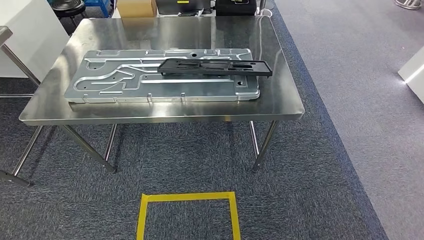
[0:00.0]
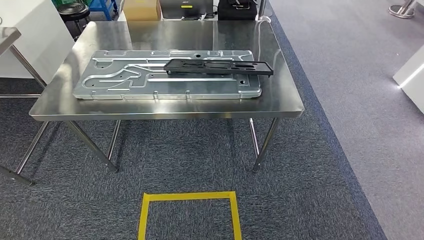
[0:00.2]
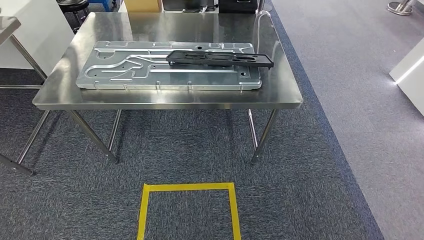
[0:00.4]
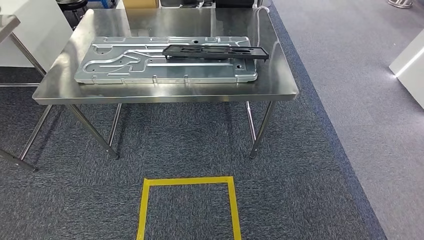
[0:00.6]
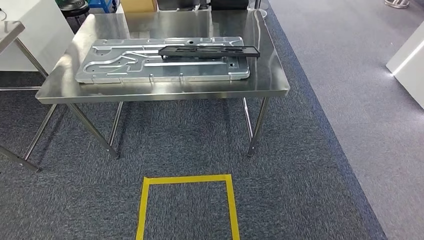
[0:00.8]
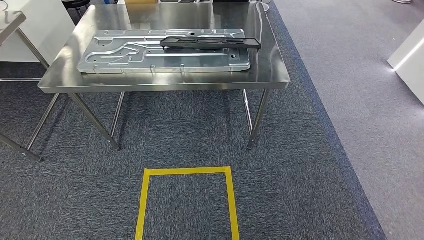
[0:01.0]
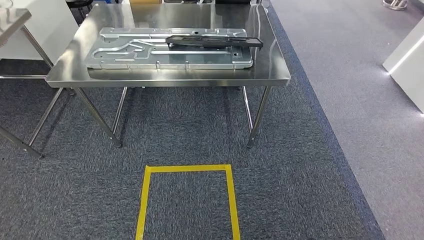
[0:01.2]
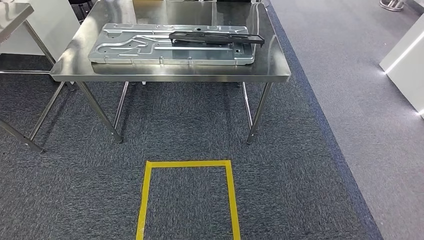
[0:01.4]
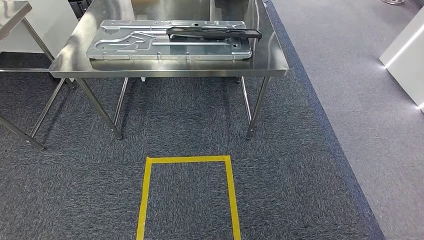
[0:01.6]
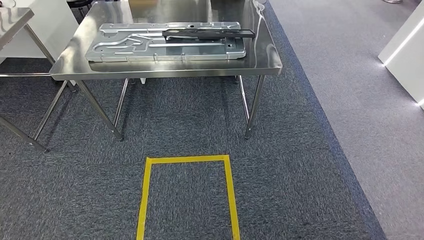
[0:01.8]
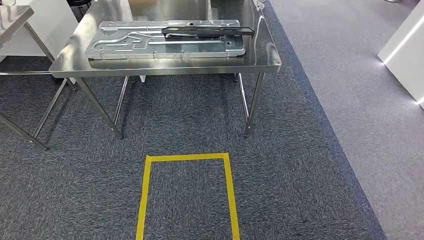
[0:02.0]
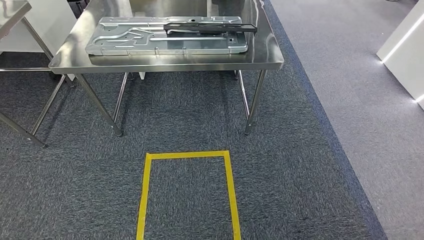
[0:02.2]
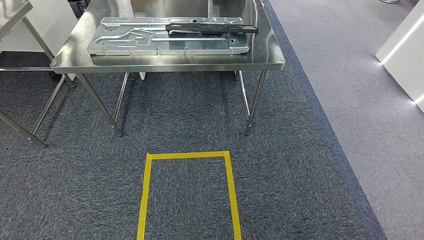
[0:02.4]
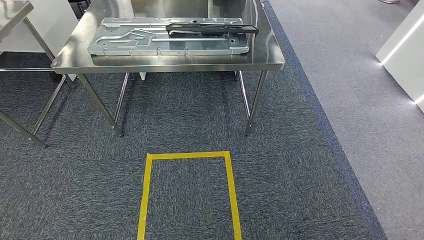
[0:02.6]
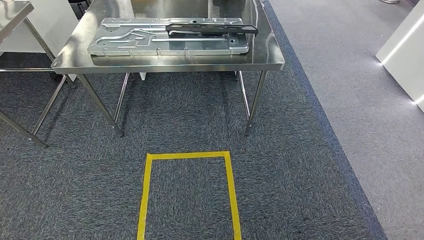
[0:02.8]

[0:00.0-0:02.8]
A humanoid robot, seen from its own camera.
Step, 0:00.0 to 0:02.8: Move to the initial position of the shelf.
0:01.4 to 0:02.8: The hands stay close to where they were, moving slightly.
